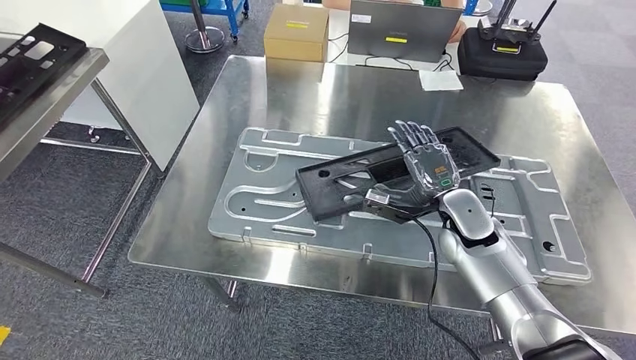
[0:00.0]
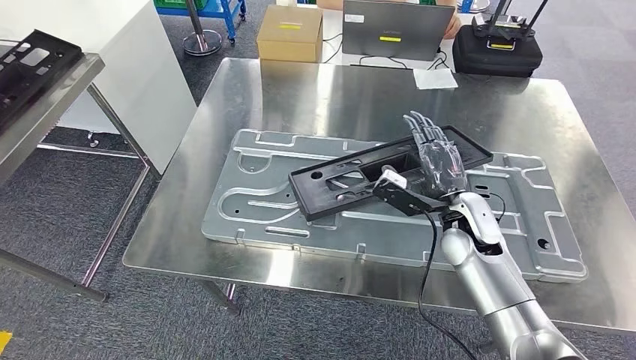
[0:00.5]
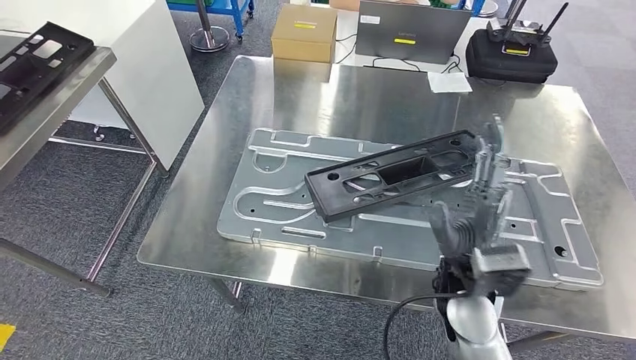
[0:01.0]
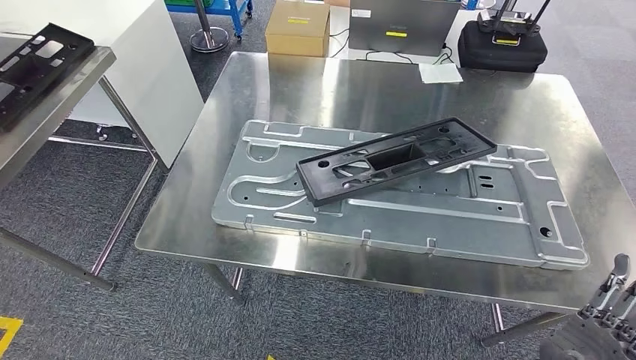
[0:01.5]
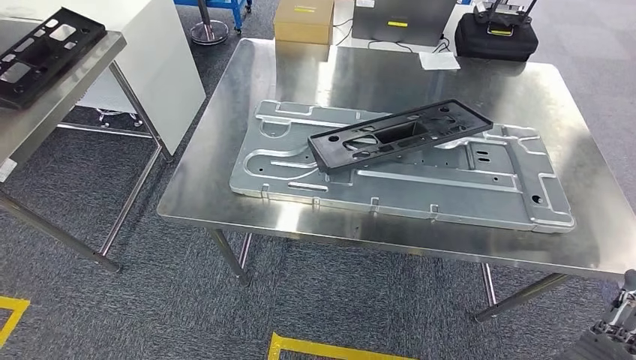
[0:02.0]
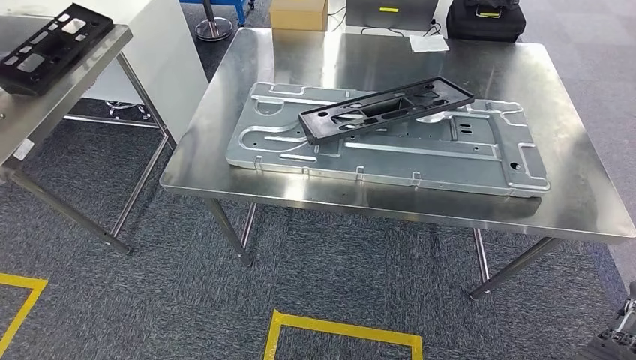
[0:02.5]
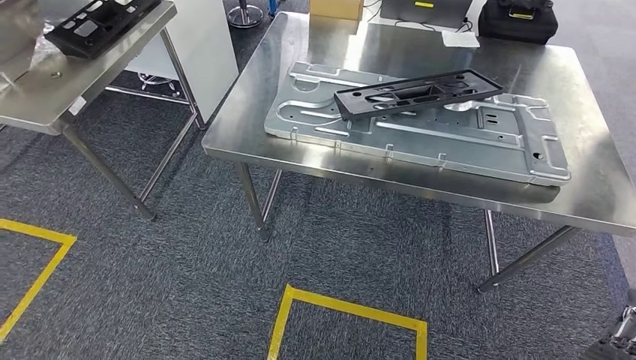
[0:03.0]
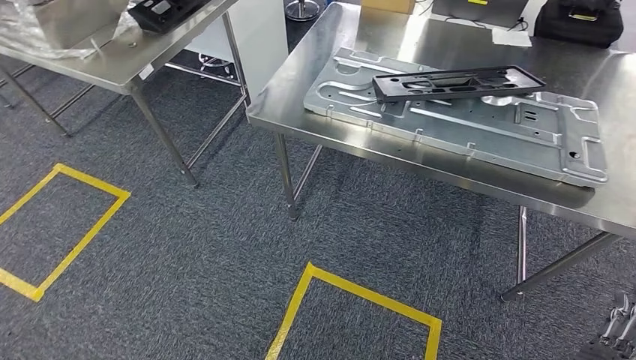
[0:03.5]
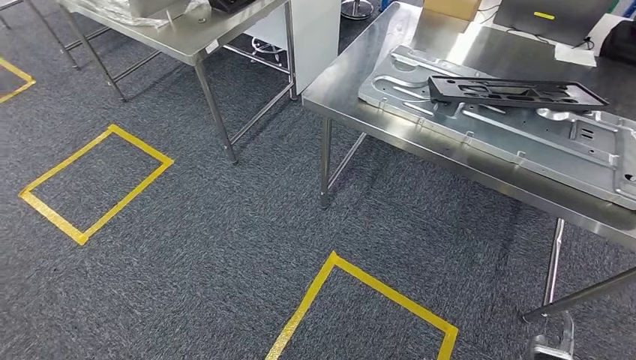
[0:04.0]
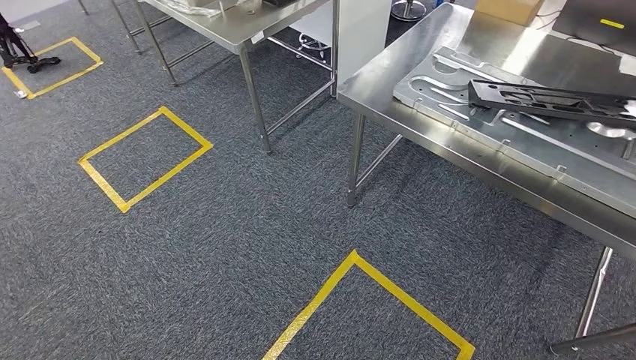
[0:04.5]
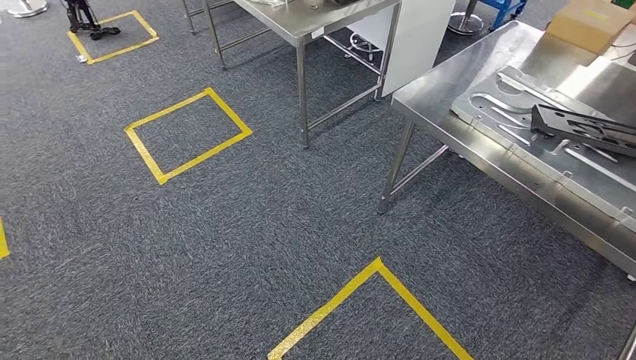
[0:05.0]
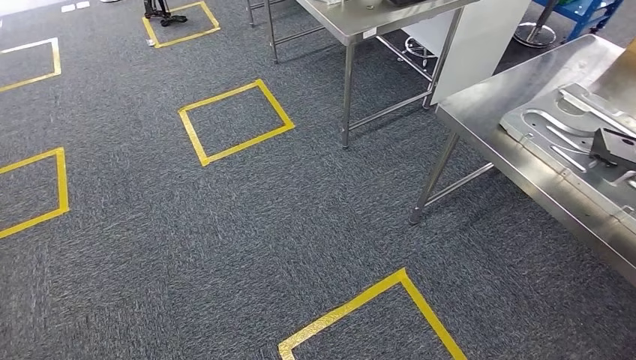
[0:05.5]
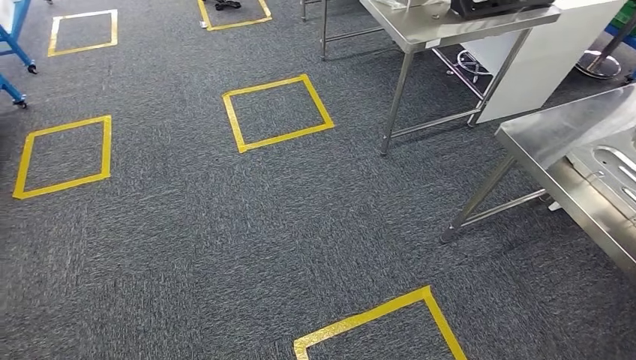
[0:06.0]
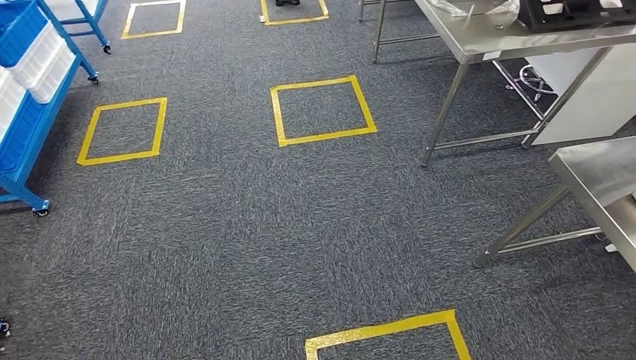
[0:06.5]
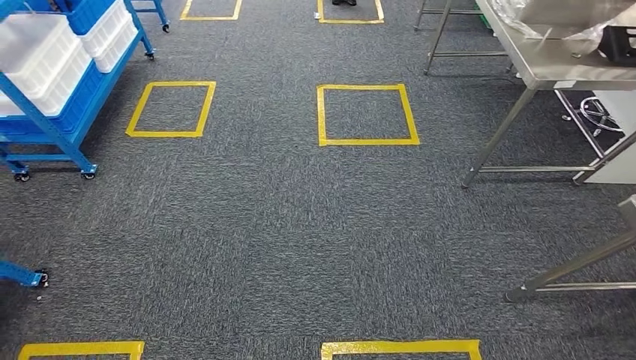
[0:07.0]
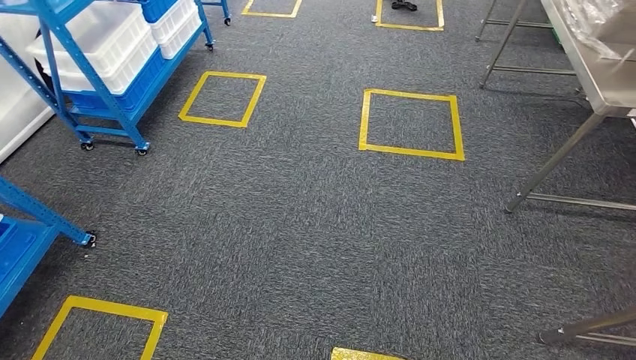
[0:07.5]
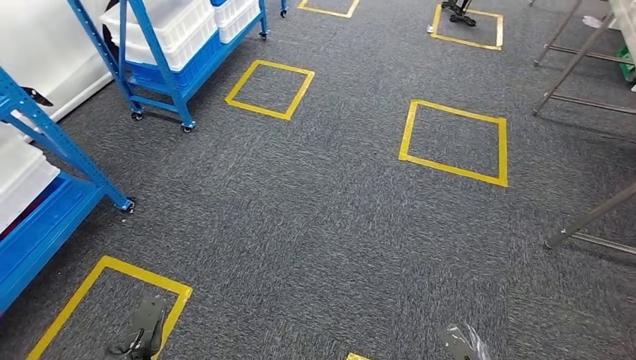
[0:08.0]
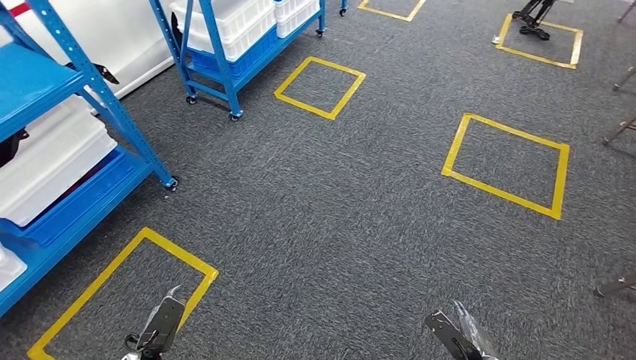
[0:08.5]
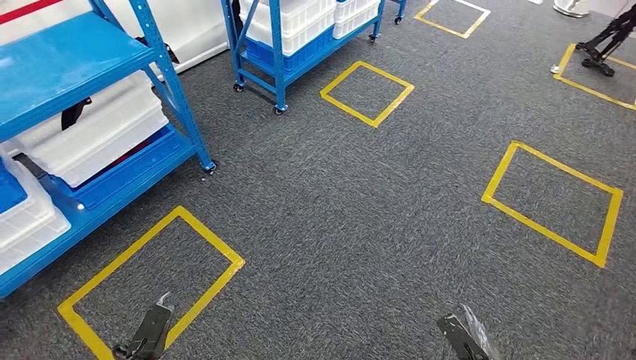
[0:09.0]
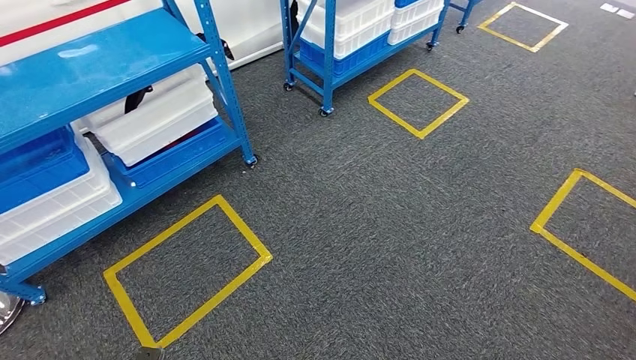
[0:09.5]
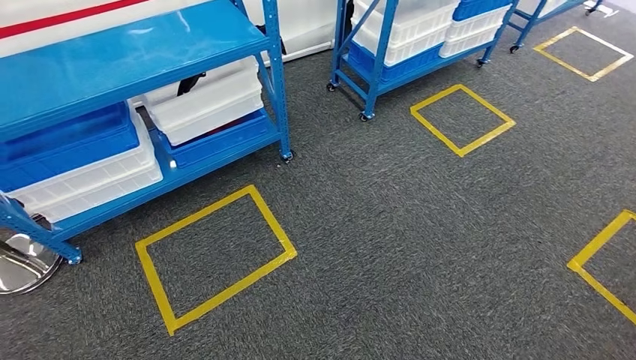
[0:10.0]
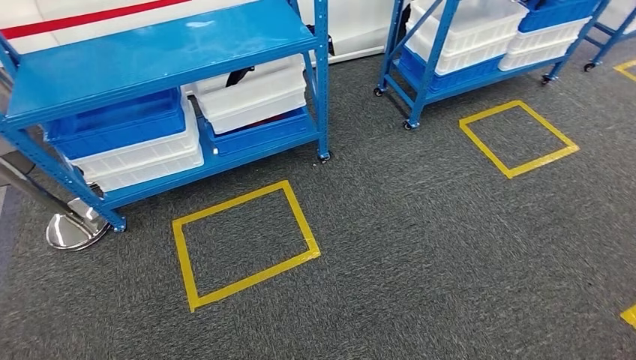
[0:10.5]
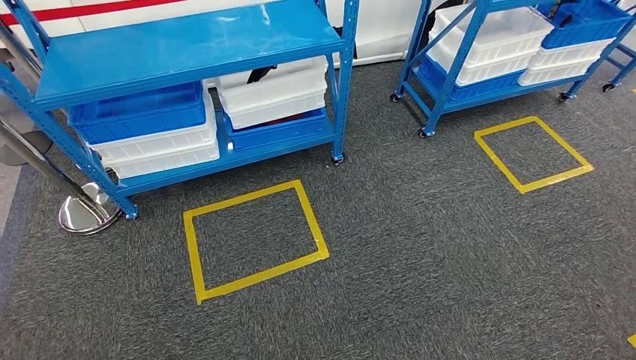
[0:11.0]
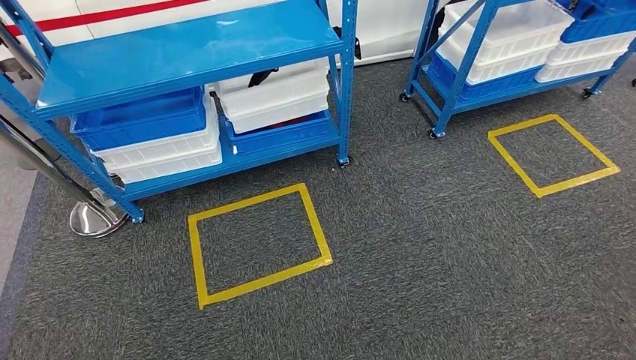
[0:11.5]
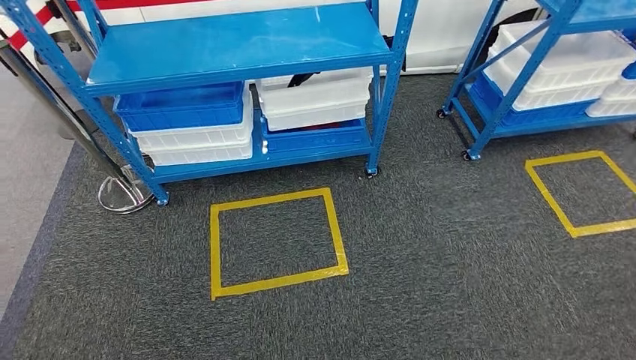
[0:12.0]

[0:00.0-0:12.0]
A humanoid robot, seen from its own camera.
Step, 0:00.0 to 0:02.0: Insert the large material into the corresponding hole on the workbench.

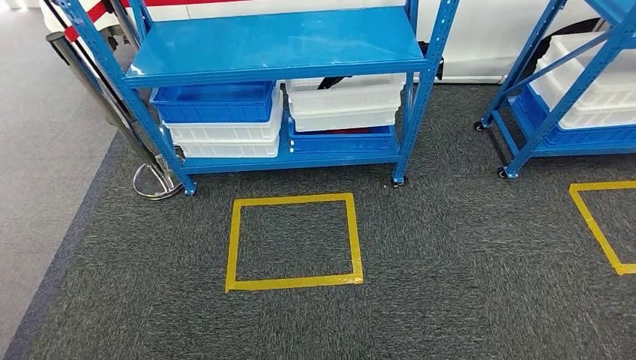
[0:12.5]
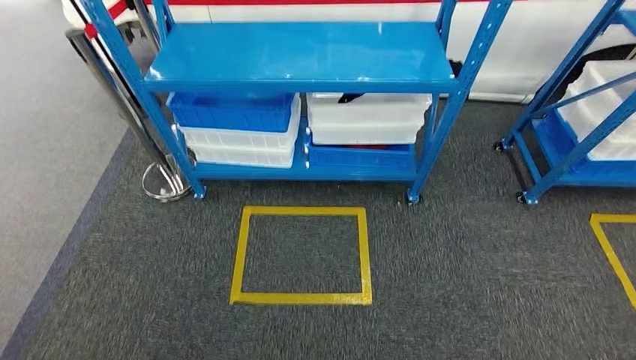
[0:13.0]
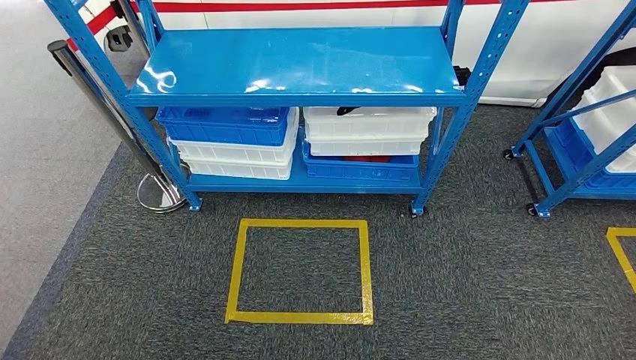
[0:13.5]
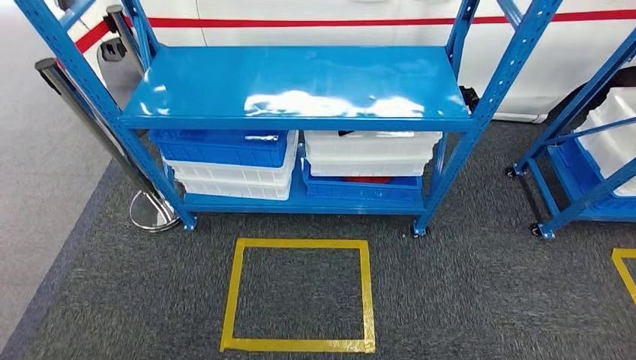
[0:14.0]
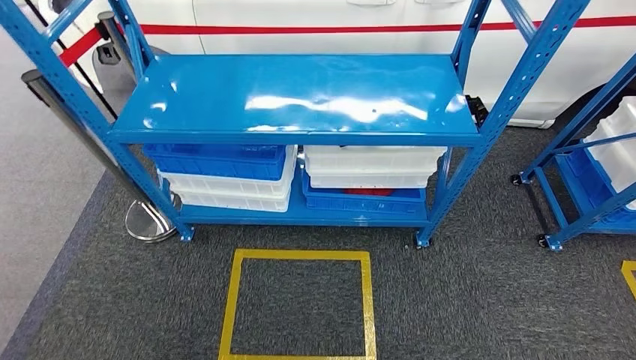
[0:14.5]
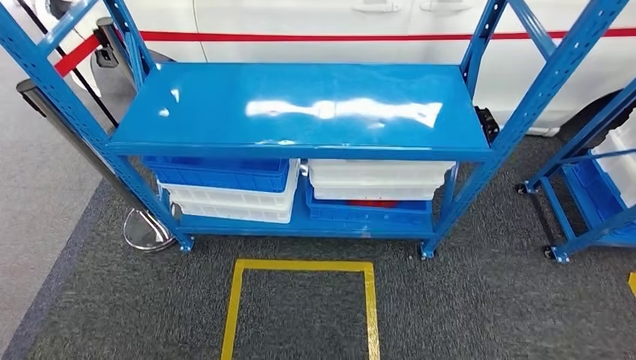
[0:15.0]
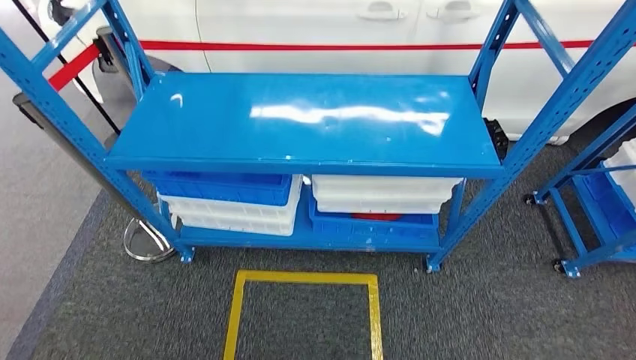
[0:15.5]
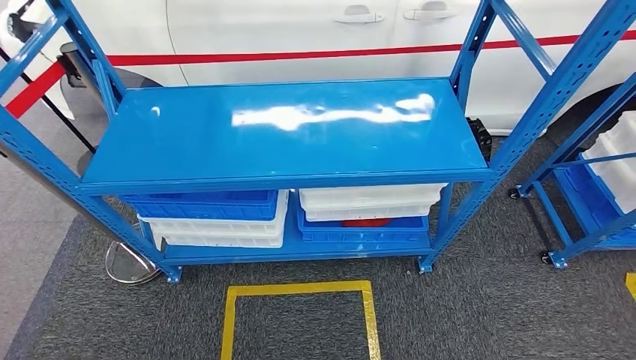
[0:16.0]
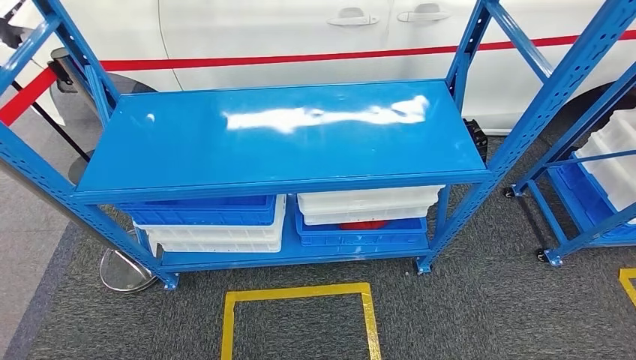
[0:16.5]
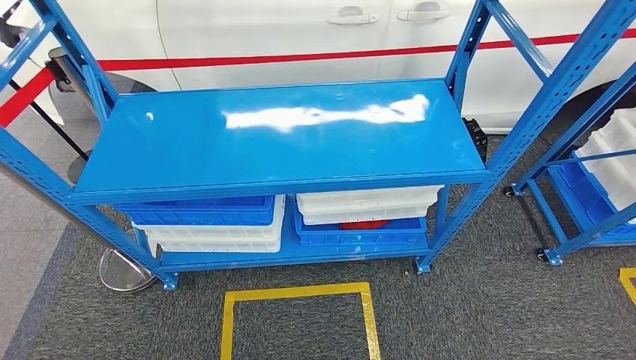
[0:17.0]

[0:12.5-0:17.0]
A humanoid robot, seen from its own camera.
Step, 0:12.5 to 0:17.0: Move to the initial position of the shelf.
